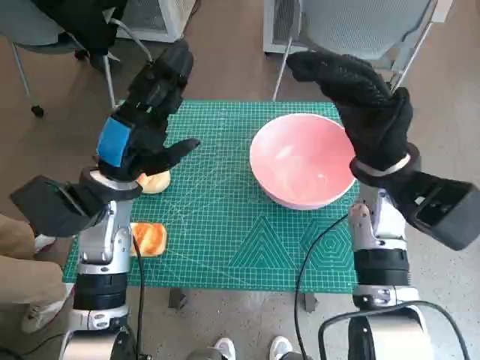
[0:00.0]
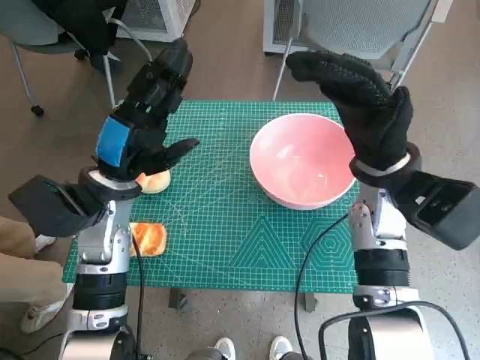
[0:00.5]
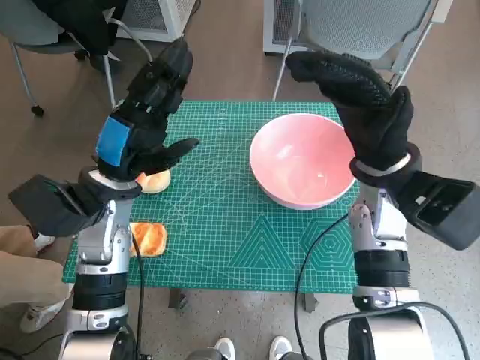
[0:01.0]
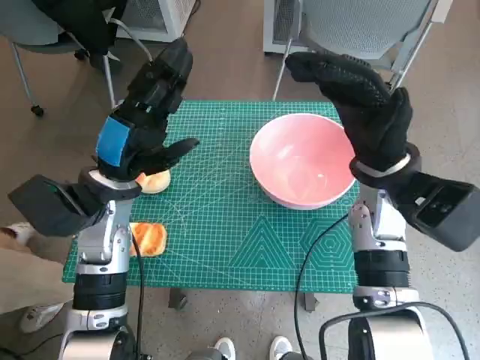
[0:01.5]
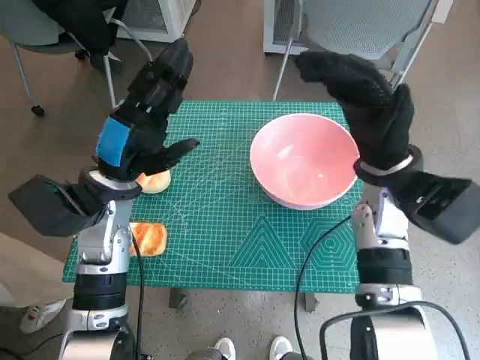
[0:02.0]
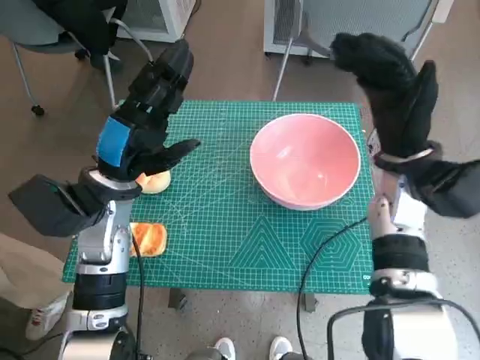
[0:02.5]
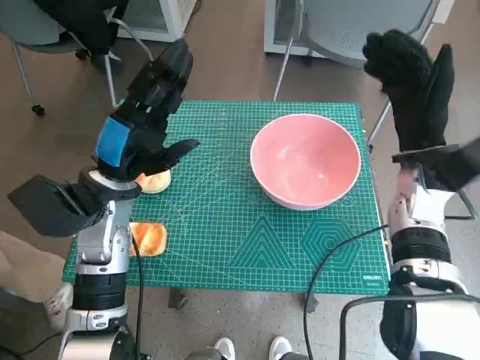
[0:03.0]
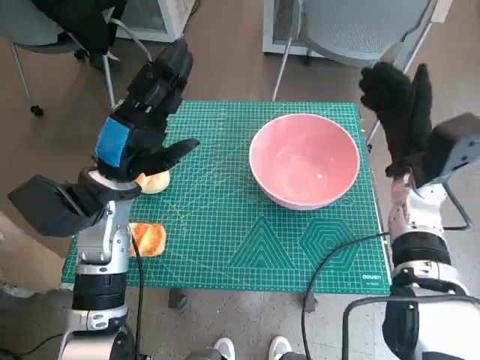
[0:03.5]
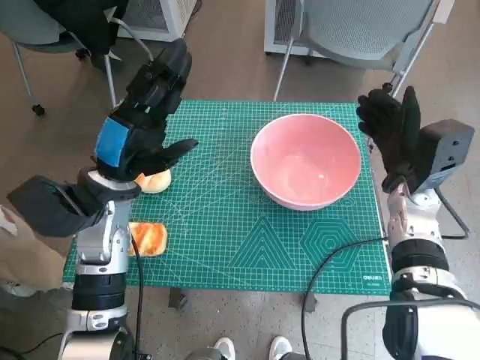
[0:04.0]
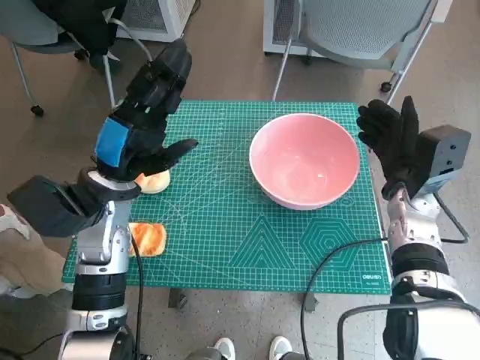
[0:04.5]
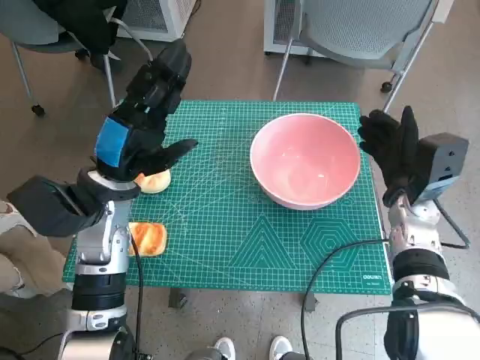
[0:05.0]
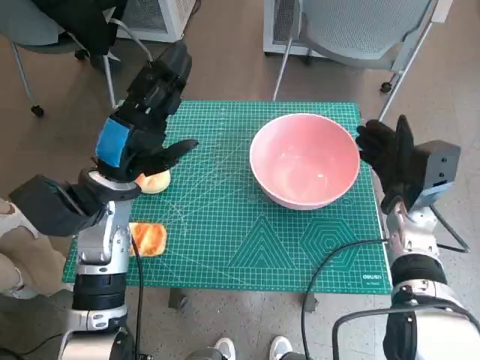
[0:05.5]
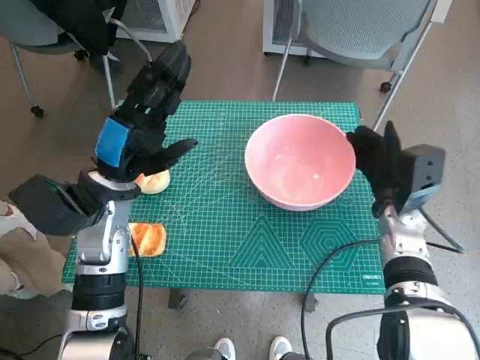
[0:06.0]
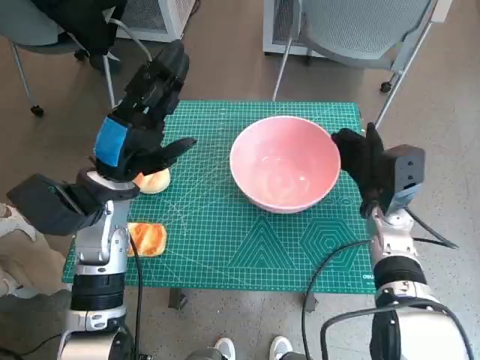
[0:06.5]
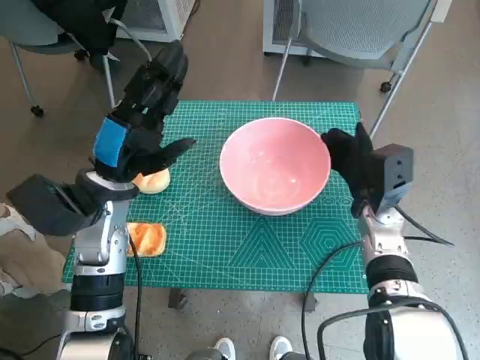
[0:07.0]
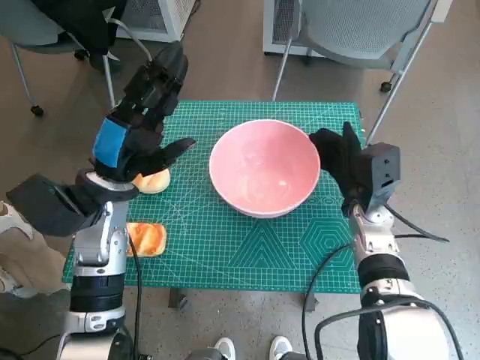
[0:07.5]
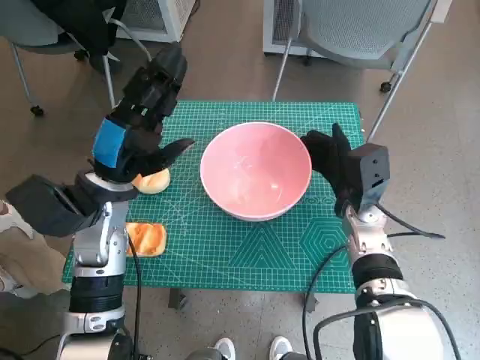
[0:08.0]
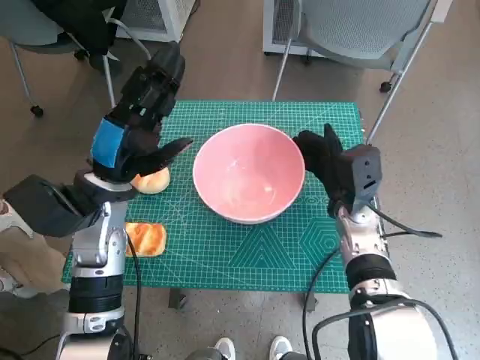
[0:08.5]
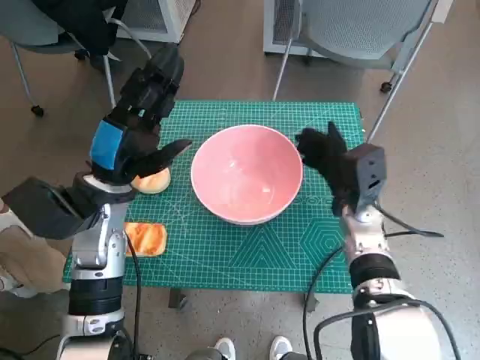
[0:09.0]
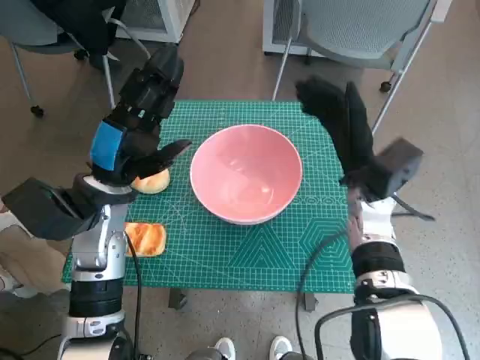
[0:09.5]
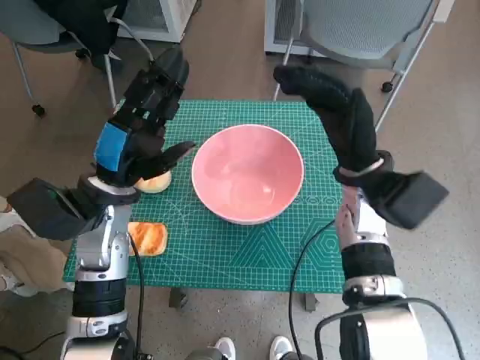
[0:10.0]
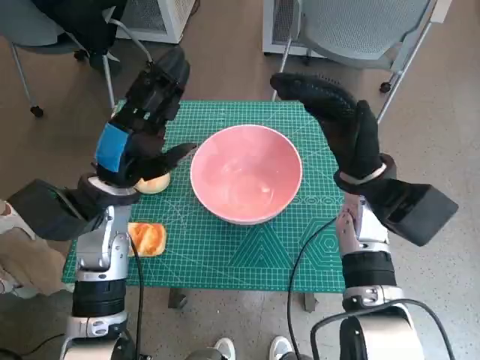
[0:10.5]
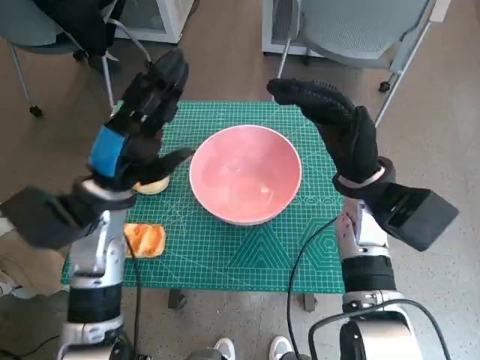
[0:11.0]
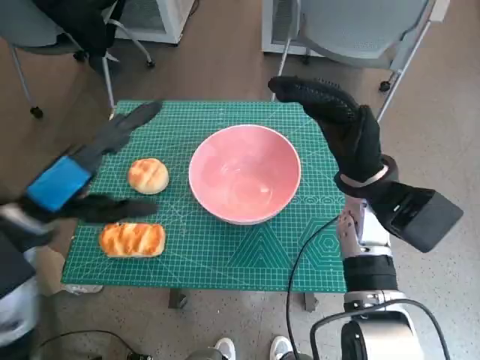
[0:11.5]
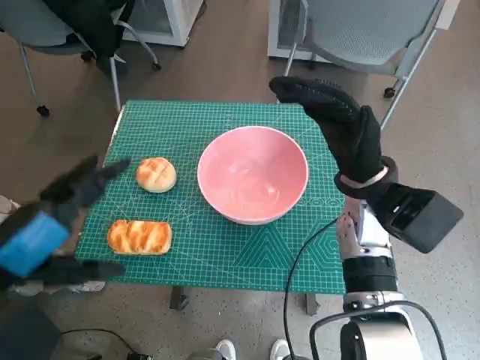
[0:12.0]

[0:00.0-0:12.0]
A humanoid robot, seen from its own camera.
Step, 0:00.0 to 0:09.0: Move the pink bowl to the center of table with right hand.
0:02.0 to 0:04.0: The right hand moves downward and to the right, some 10 cm.
0:04.0 to 0:06.0: The hands stay close to where they were, moving slightly.
0:06.0 to 0:08.0: The right hand shifts some 5 cm to the left.
0:08.0 to 0:10.0: The right hand shifts some 10 cm upward.
0:10.0 to 0:12.0: The left hand travels backward and upward by some 15 cm.

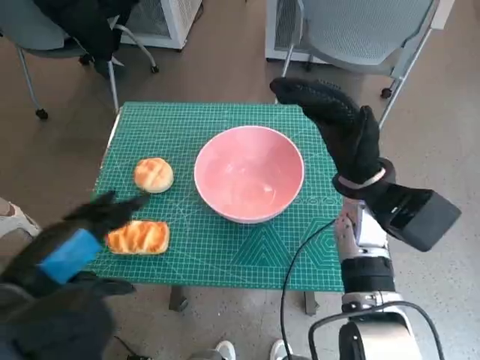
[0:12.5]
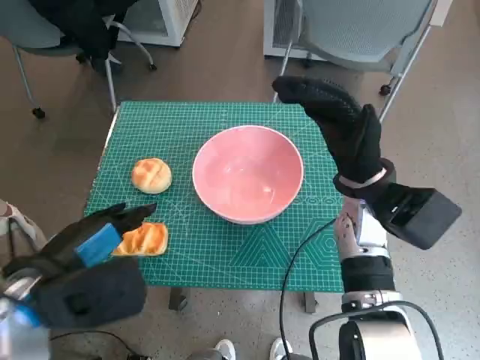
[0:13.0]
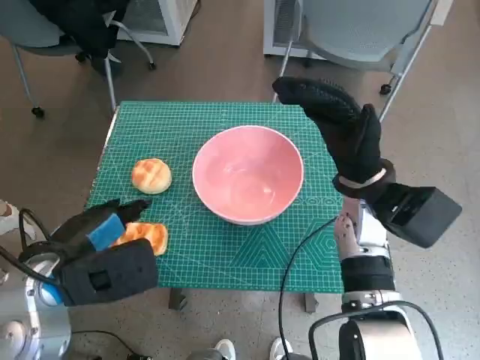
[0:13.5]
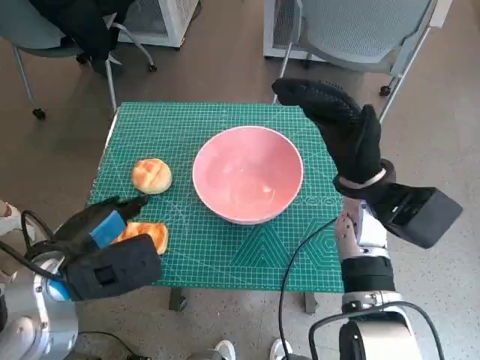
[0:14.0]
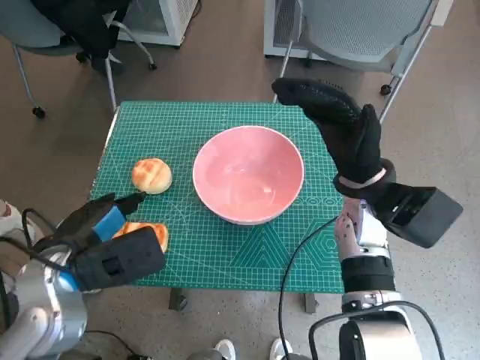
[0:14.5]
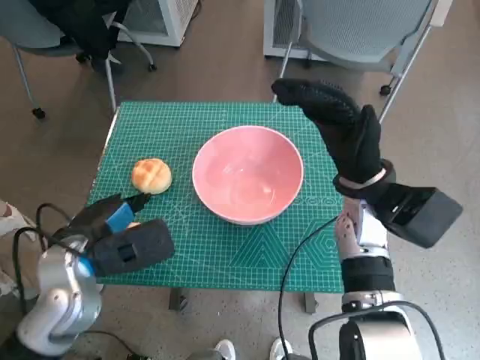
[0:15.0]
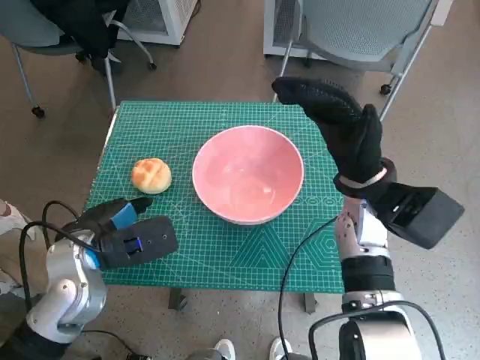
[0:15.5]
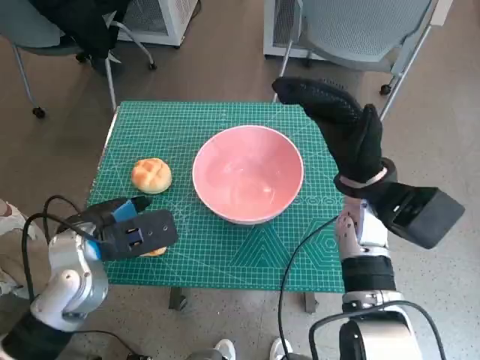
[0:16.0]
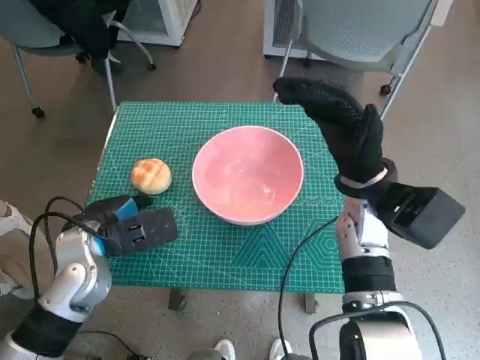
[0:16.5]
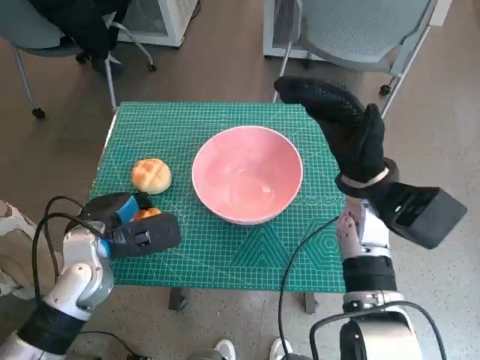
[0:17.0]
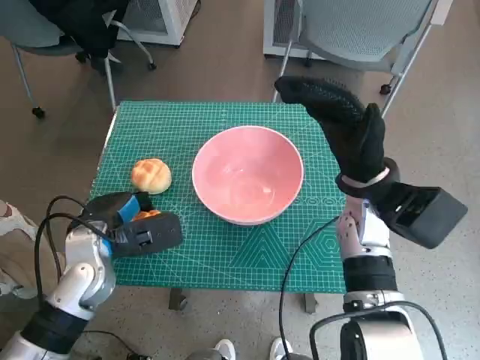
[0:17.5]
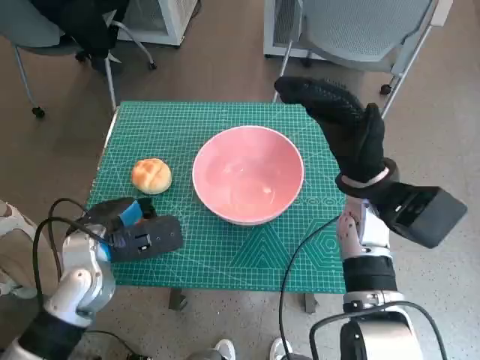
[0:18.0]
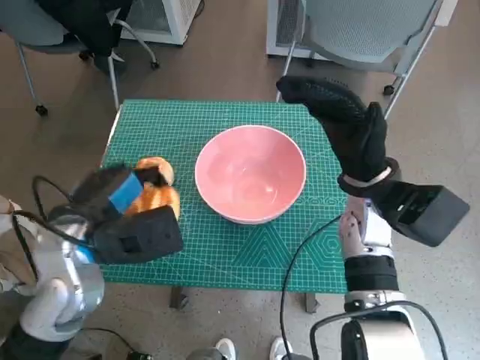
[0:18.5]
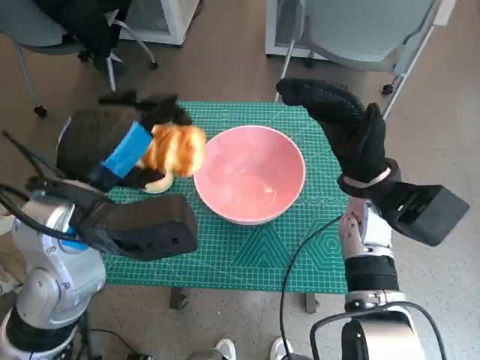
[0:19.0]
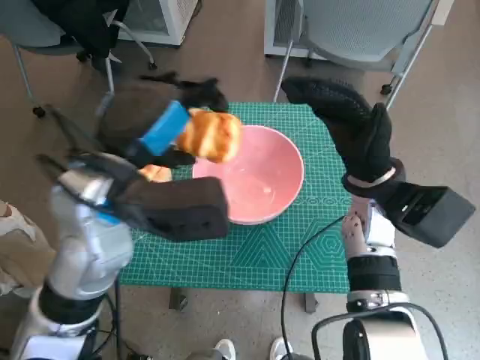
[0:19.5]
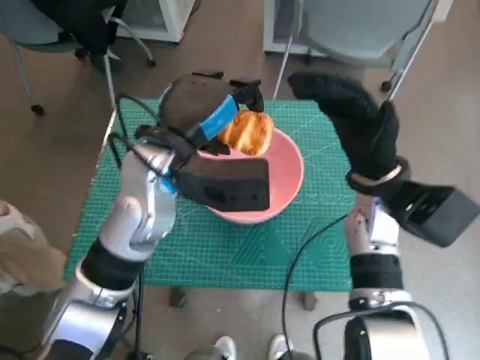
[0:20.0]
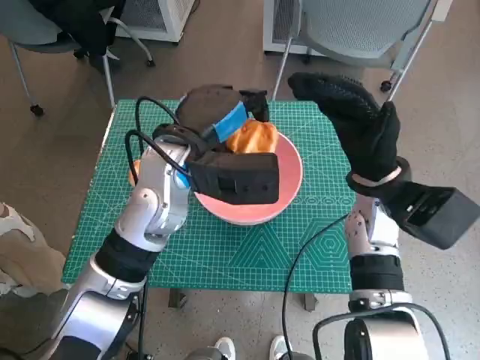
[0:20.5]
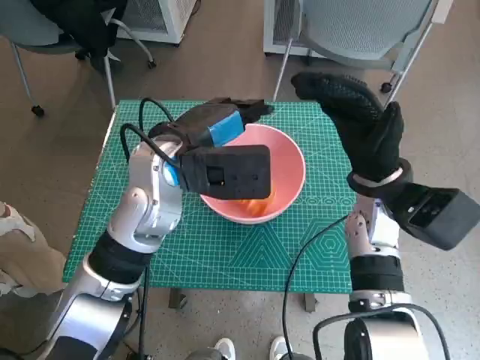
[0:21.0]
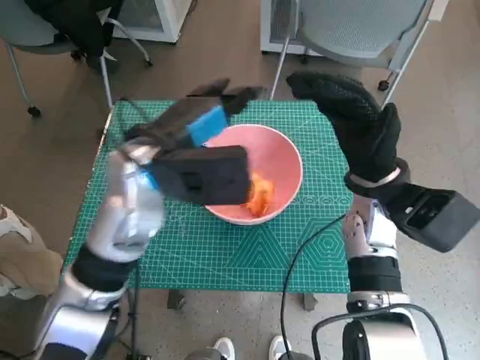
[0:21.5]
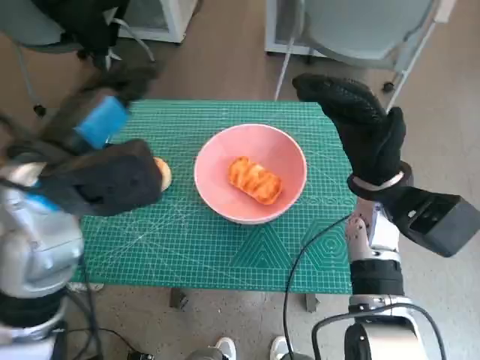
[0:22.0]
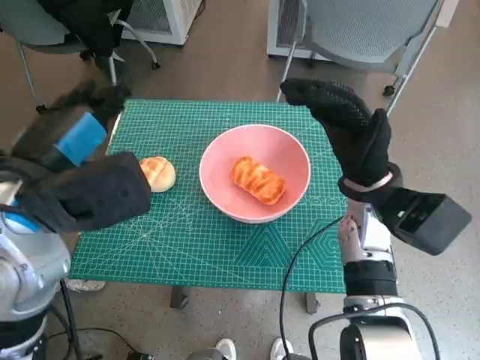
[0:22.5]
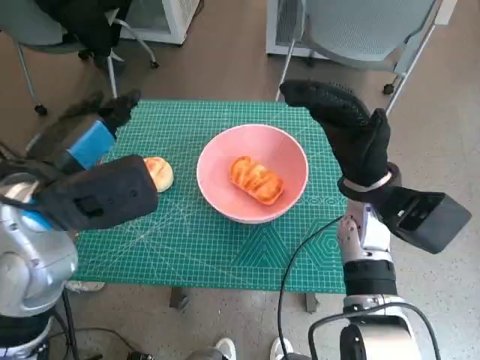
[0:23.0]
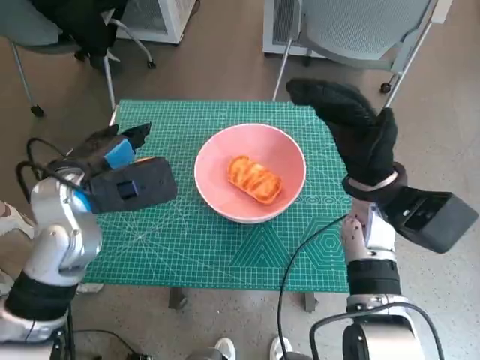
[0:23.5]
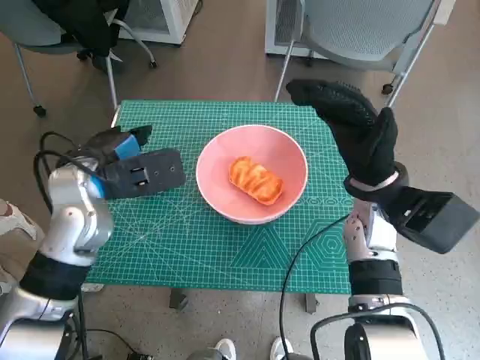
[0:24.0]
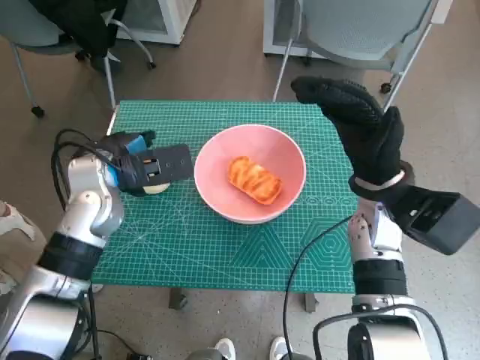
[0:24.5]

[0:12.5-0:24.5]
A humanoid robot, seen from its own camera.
Step, 0:12.5 to 0:16.5: Grasp the long bread with left hand.
Step, 0:17.0 to 0:21.0: Place the long bread in pink bowl with left hand.
0:12.5 to 0:14.5: The left hand shifts roughly 10 cm forward and downward.
0:14.5 to 0:16.5: The left hand goes approximately 5 cm forward.
0:16.5 to 0:18.5: The left hand heads upward, covering roughly 5 cm.
0:18.5 to 0:20.5: The left hand travels to the right and forward by about 15 cm.
0:20.5 to 0:22.5: The left hand is displaced to the left, backward and upward by approximately 15 cm.
0:22.5 to 0:24.5: The left hand goes some 15 cm forward and downward.

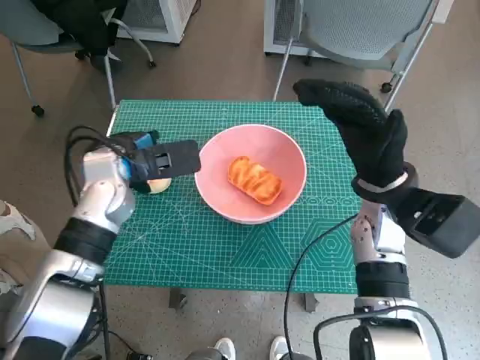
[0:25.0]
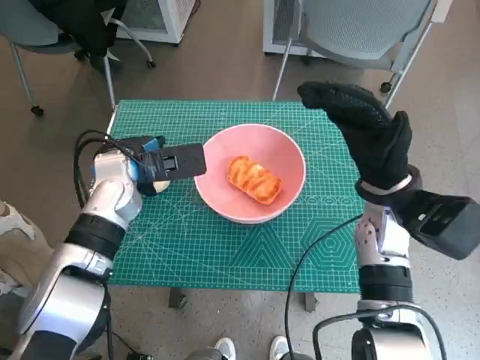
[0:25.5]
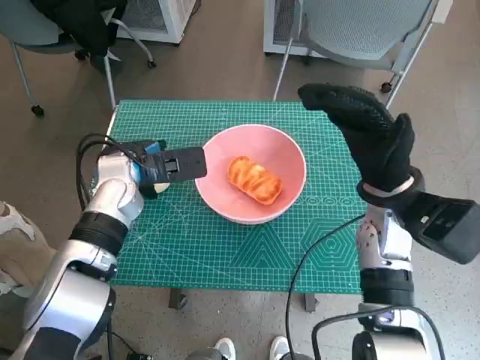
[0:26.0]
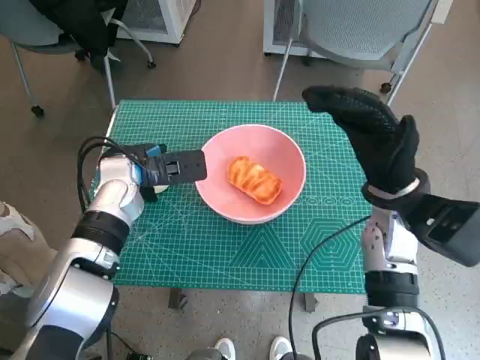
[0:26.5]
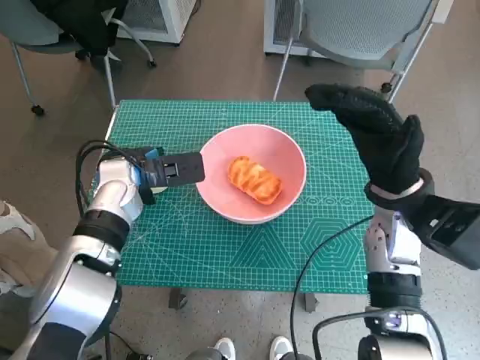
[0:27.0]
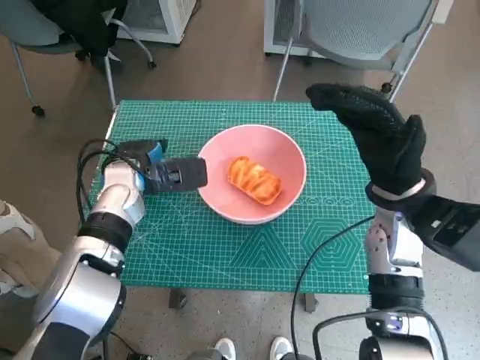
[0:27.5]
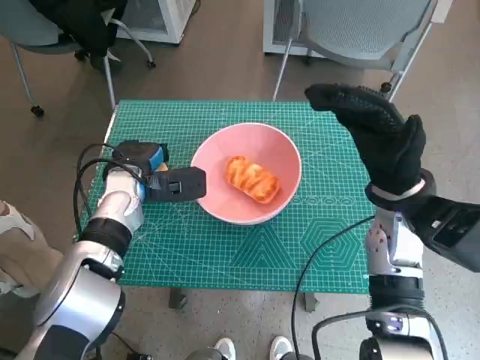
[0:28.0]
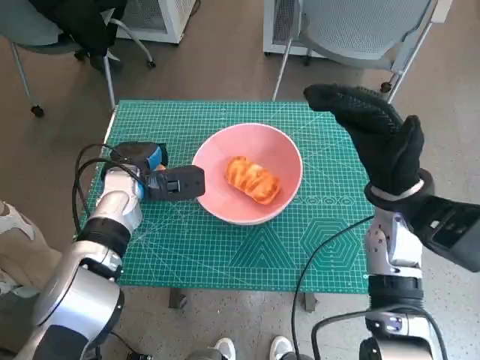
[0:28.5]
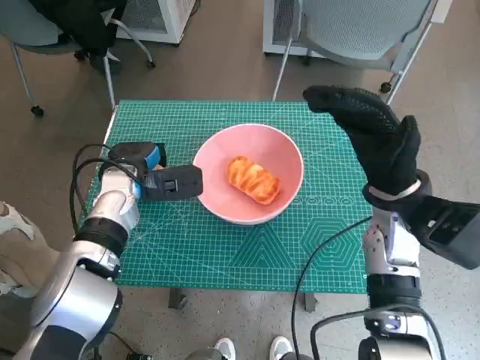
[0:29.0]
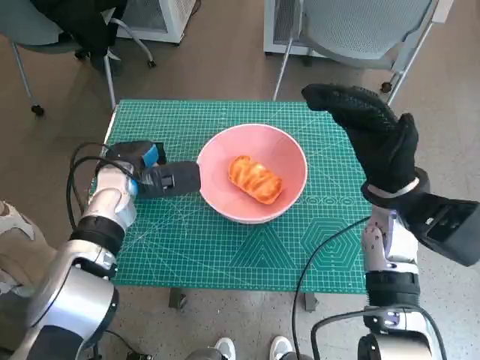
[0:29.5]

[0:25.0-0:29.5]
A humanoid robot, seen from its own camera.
Step, 0:25.0 to 0:27.5: Grasp the round bread with left hand.
0:25.0 to 0:29.5: There are only small adjustments of the hands.
